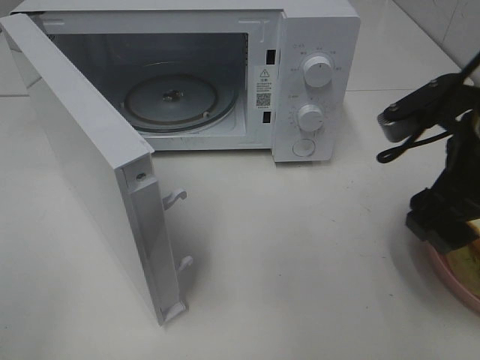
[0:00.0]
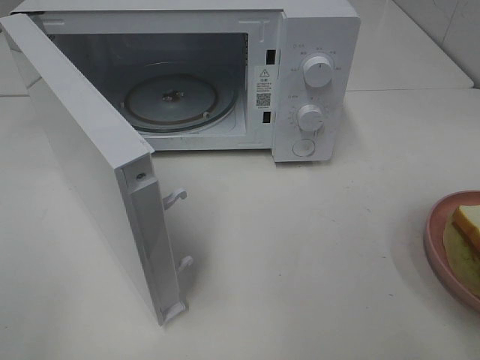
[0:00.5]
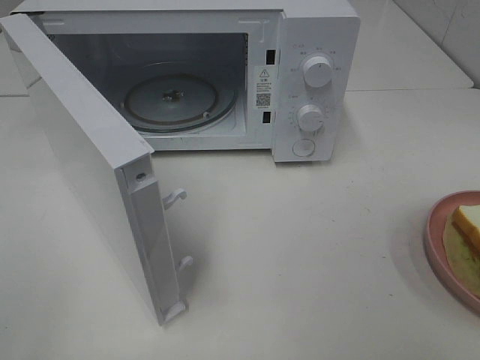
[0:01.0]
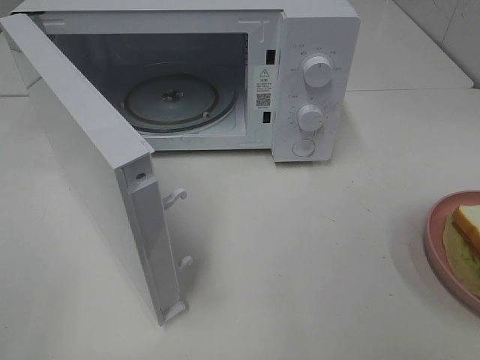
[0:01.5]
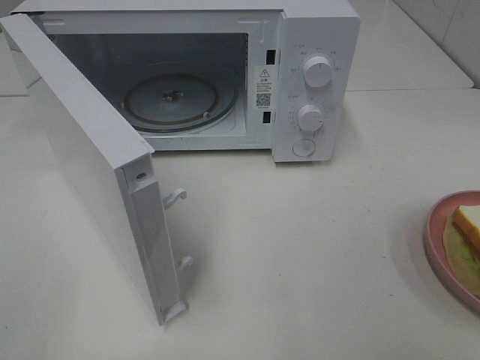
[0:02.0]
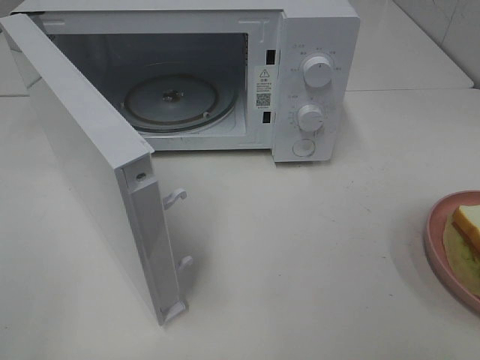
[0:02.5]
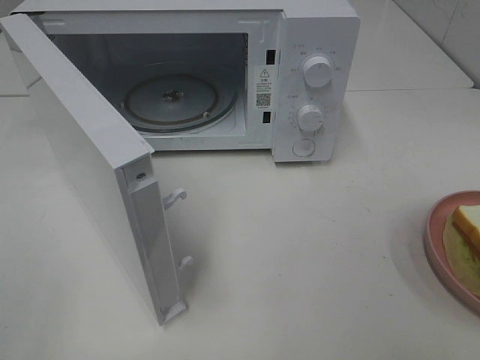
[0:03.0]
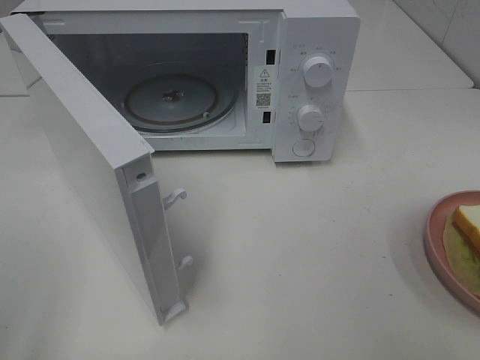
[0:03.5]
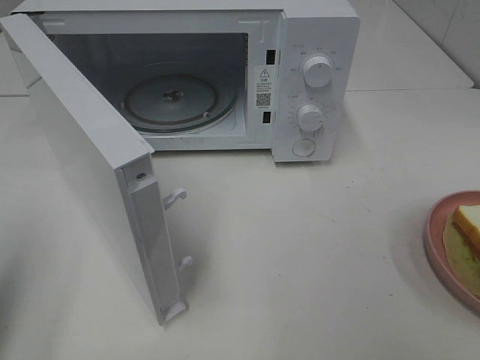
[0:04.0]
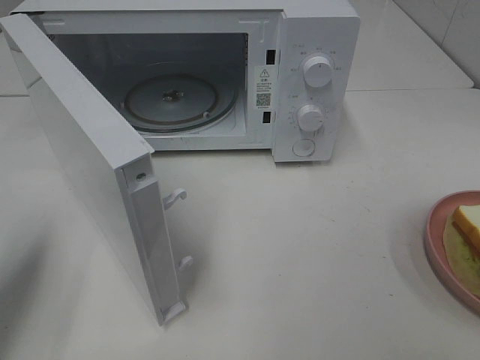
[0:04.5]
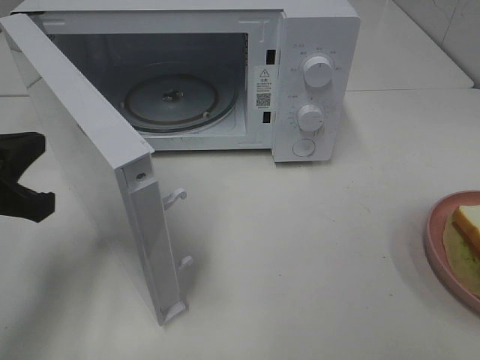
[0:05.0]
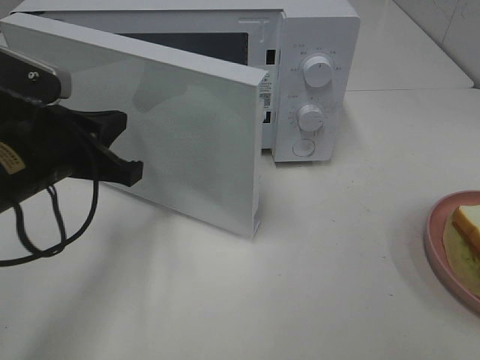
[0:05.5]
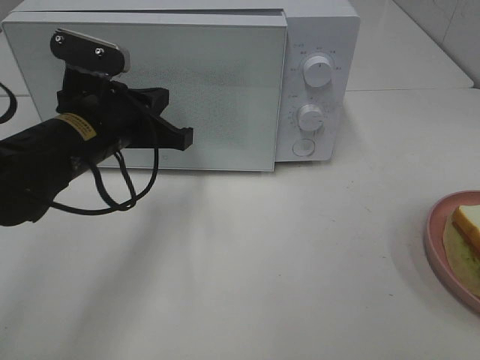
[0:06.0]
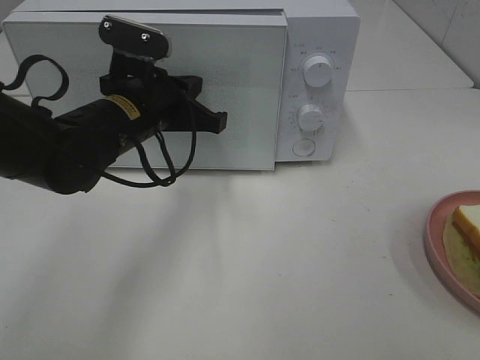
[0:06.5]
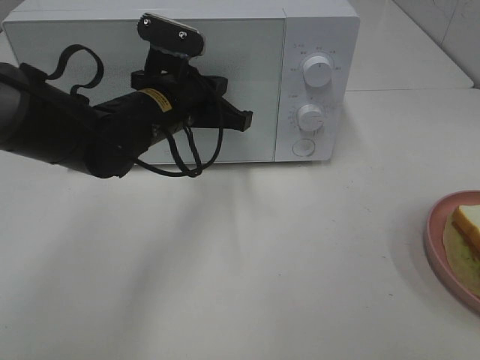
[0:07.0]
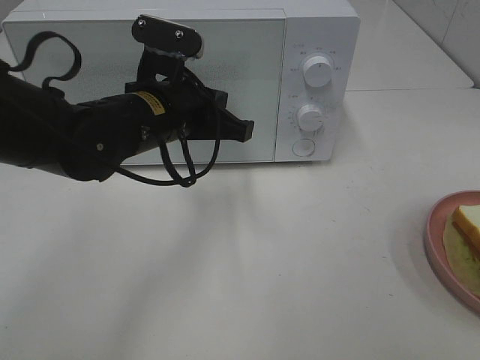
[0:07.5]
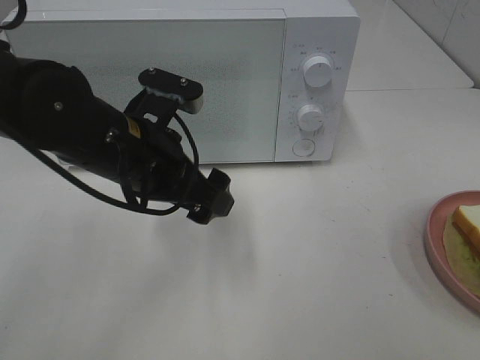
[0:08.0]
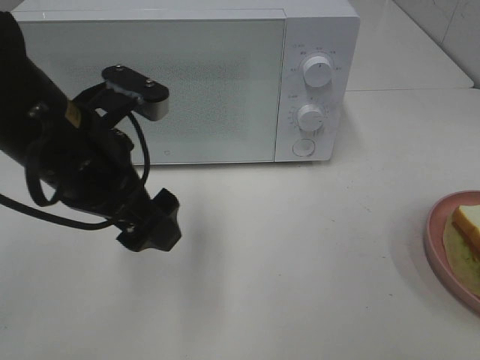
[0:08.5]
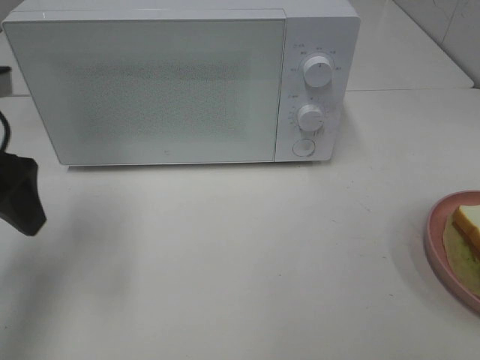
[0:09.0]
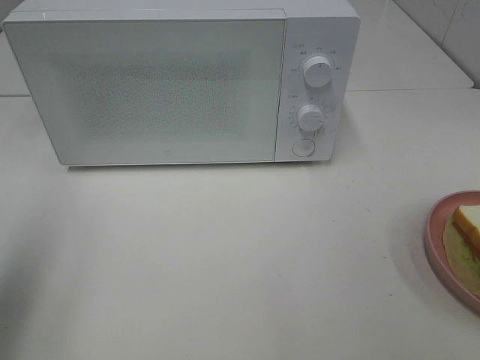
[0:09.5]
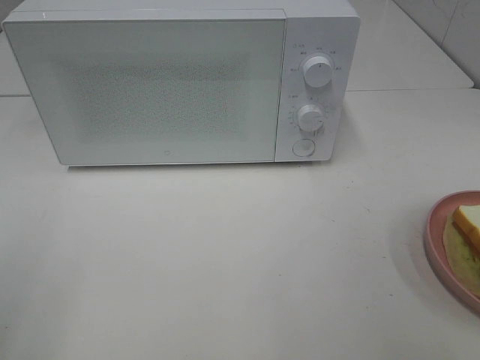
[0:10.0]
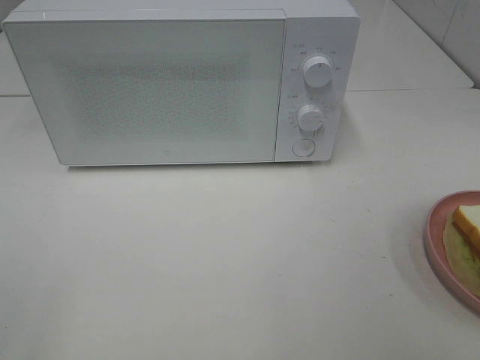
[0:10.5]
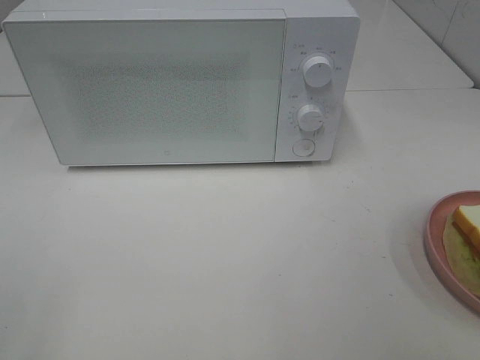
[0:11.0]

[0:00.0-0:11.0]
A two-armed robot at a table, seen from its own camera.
Task of the whole recording: Heat Sandwich.
Step, 0.0 to 7.5 s: Left hand: close the microwave door.
0.0 to 2.0 s: The right gripper moves backward and to the right, about 25 cm.
3.5 to 5.5 s: The left gripper travels forward, to the right and downward by about 25 cm, and closes.
5.5 to 7.5 s: The left gripper heads to the right and forward, covering roughly 10 cm.
7.5 to 9.0 s: The left gripper shifts some 20 cm to the left, and opens.
9.0 to 11.0 s: The left gripper goes approximately 25 cm backward.

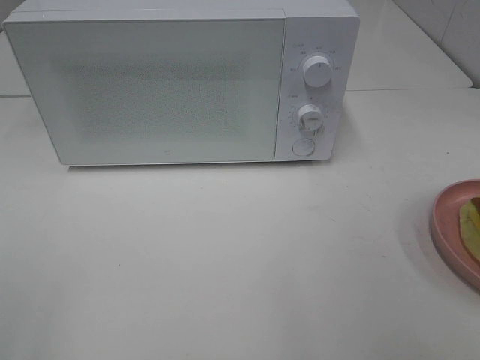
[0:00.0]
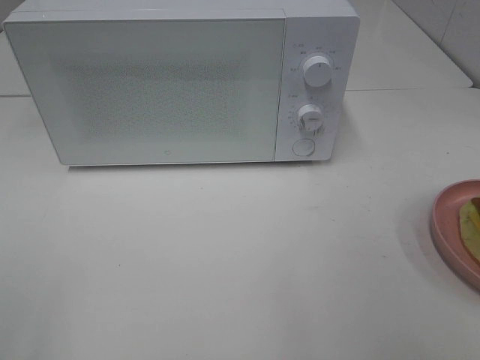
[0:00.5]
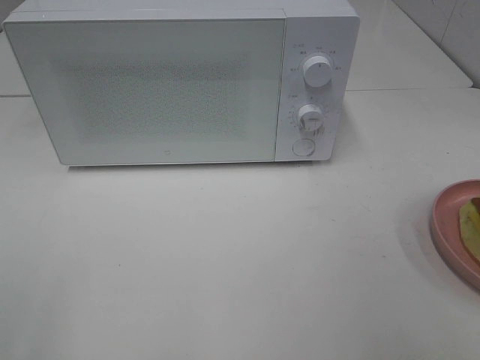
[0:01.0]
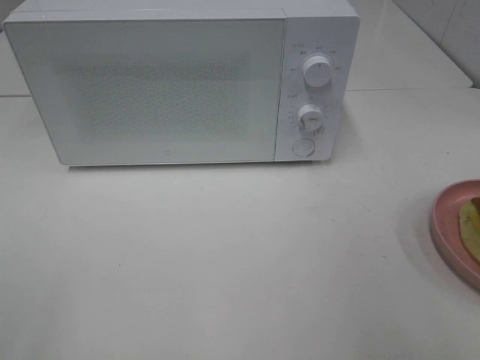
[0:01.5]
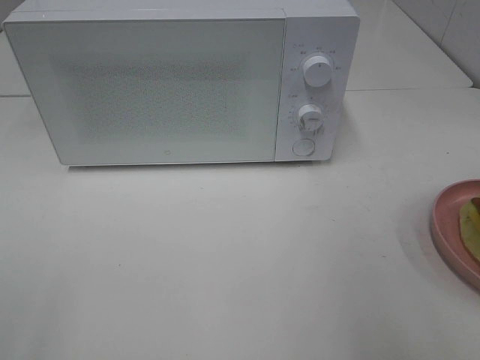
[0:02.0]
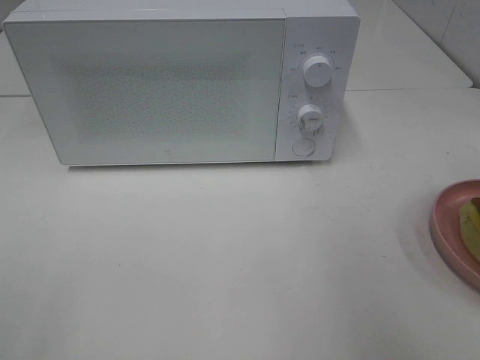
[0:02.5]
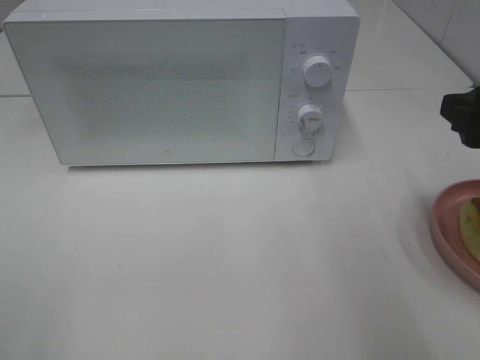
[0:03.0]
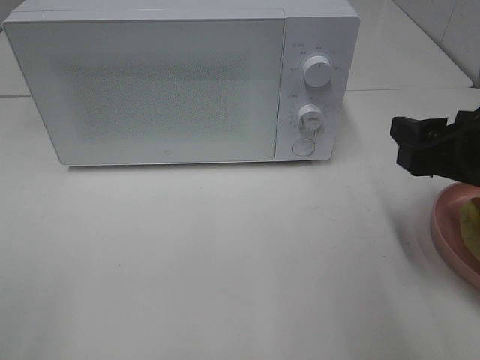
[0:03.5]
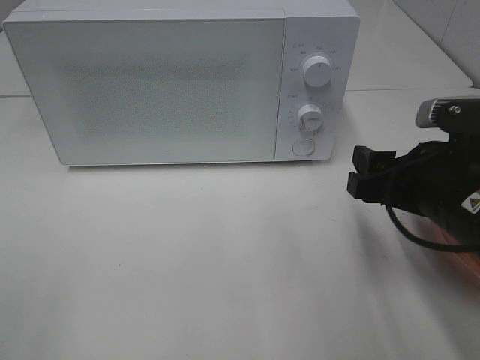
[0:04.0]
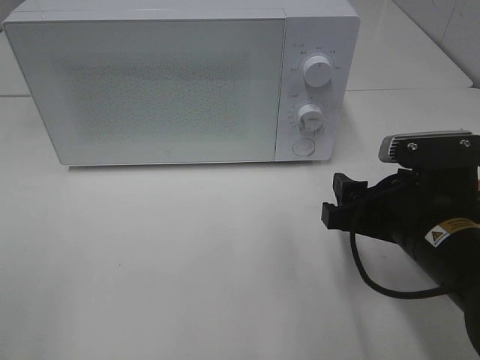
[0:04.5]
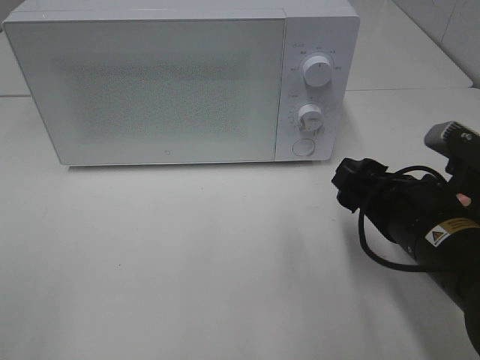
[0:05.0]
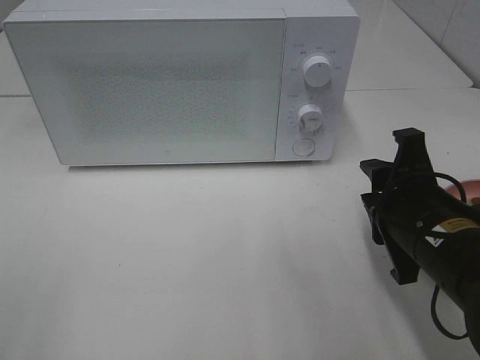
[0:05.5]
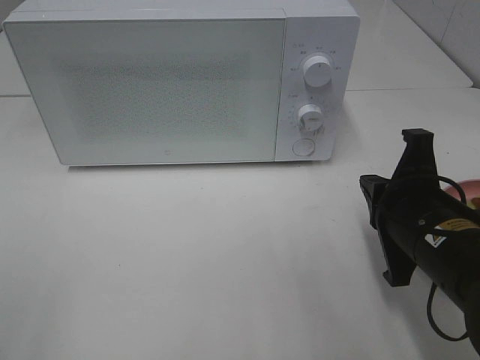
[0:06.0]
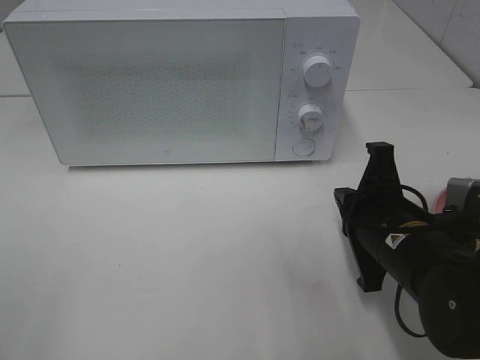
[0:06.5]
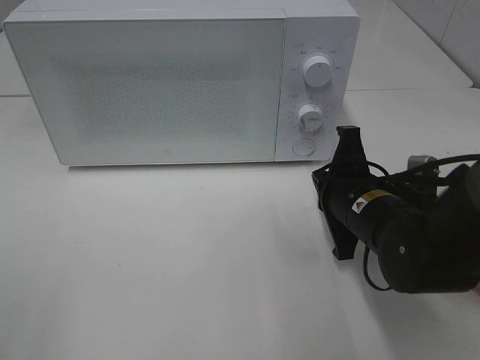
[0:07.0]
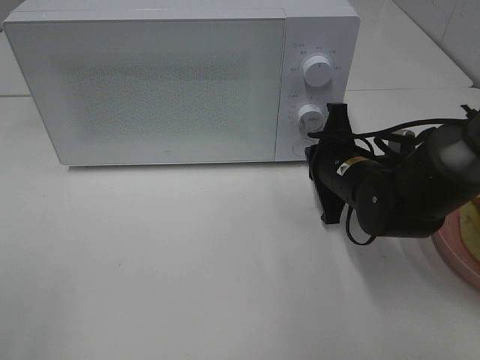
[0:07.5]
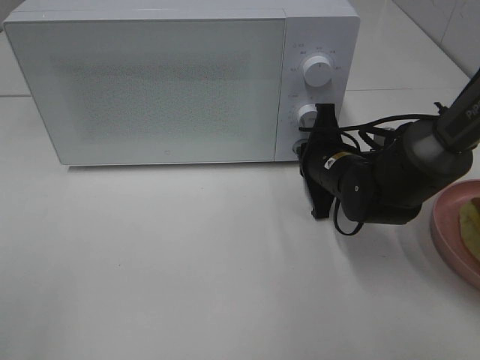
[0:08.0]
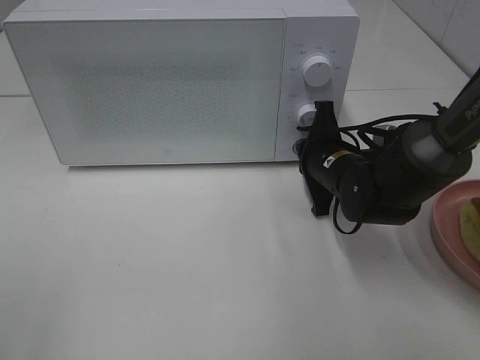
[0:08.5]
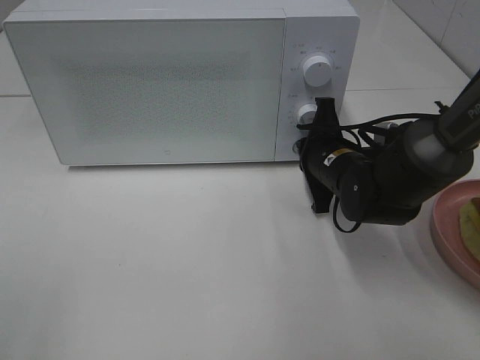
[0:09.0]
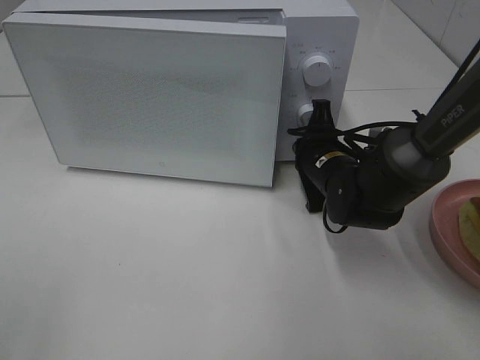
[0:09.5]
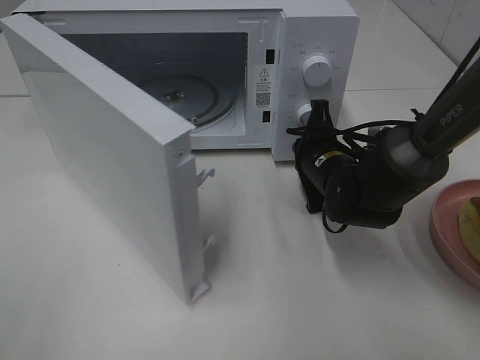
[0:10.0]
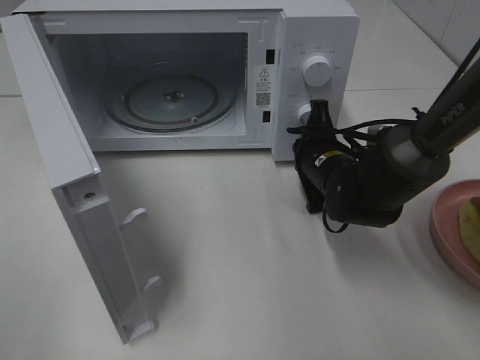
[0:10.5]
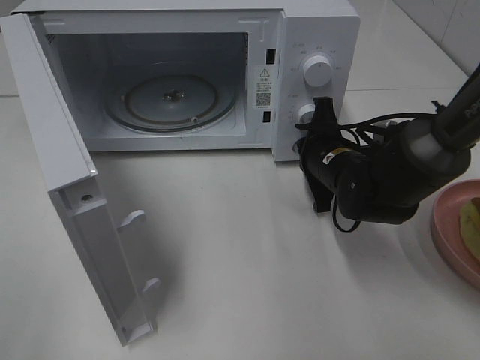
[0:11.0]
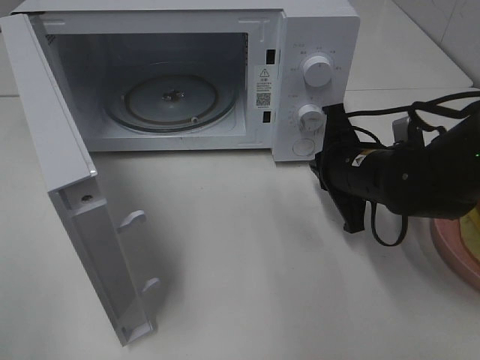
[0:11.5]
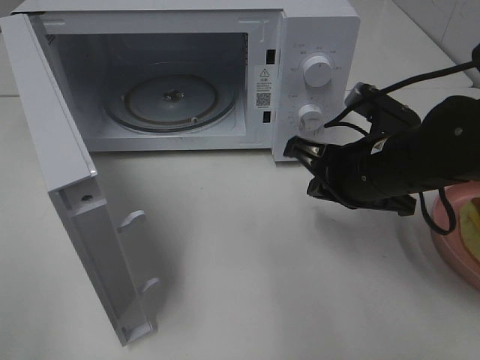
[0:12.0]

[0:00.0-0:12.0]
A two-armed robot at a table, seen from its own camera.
Task of the whole recording: Heat Sandwich.
Step, 0.0 to 11.0 s: Right hand: press the switch.
2.0 to 4.0 s: The right gripper moves downward, forward and to the left, roughly 20 cm.
4.0 to 6.0 s: The right gripper closes.
6.0 to 8.0 s: The right gripper heads forward, covering some 15 cm.
10.0 to 12.0 s: The right gripper moves backward and upward, approximately 10 cm.

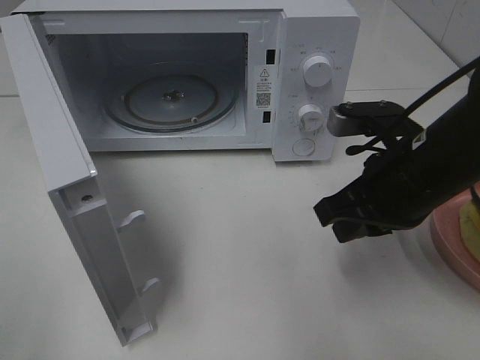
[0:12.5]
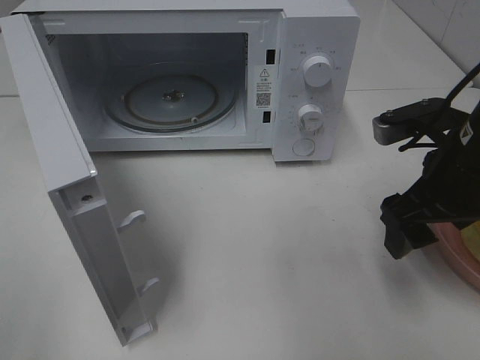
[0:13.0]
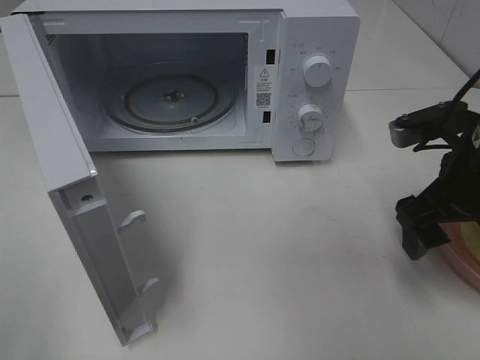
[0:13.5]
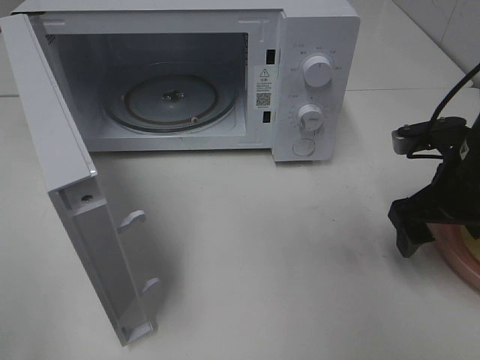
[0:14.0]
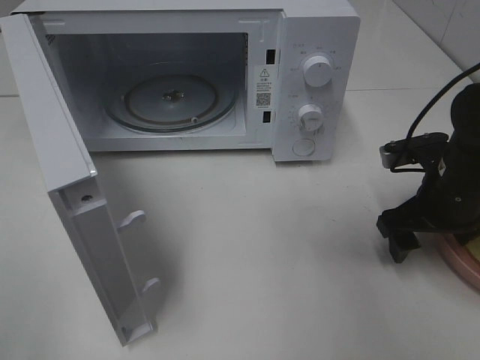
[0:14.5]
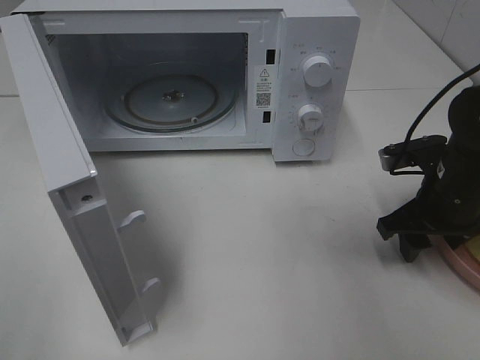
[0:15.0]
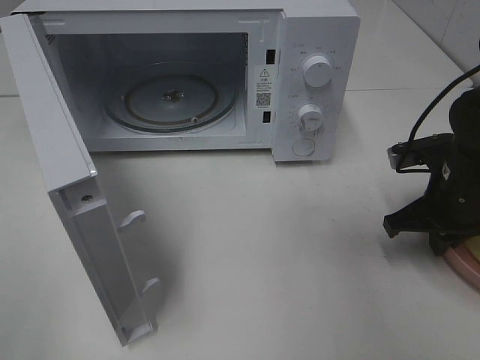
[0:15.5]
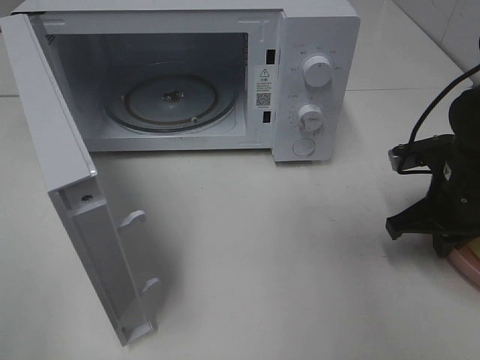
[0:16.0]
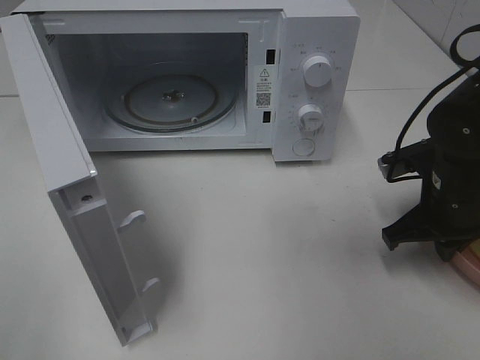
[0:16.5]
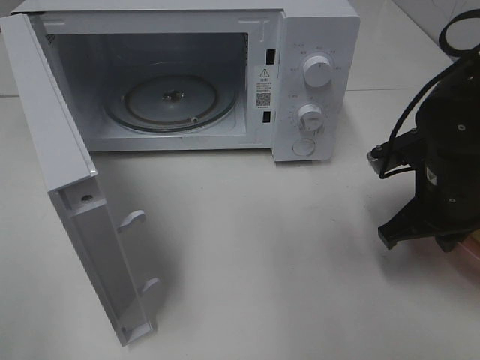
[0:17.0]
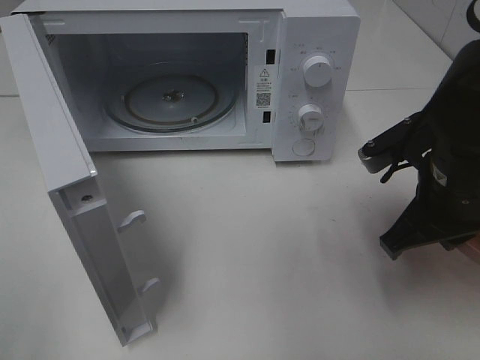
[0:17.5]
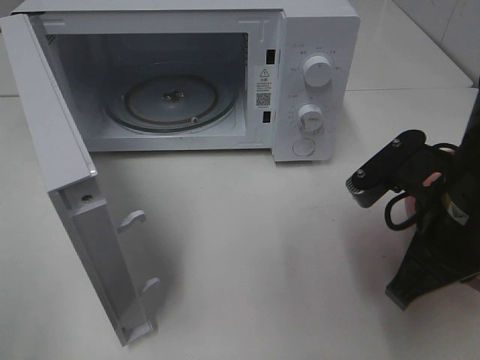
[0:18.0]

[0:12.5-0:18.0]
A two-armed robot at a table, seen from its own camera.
Task of the whole recording: Heat Sandwich.
Step, 12.5 to 16.0 s: Right hand: grab the plate with the sandwich.
12.5 to 14.5 s: The right gripper shifts about 10 cm to the right and downward, and opens up.
14.5 to 16.0 s: The right gripper closes.
16.0 to 18.0 s: The right gripper moves backward, to the left and upward, about 15 cm.
